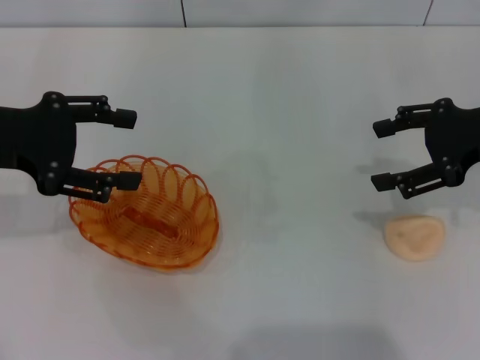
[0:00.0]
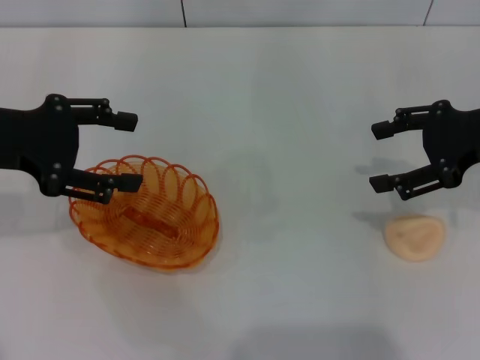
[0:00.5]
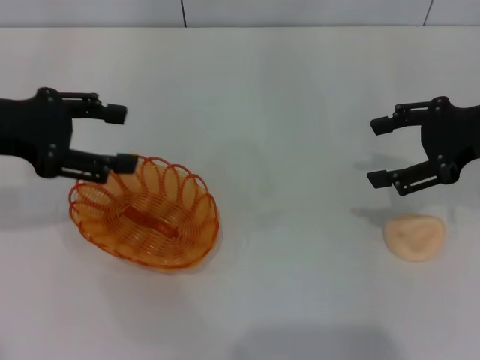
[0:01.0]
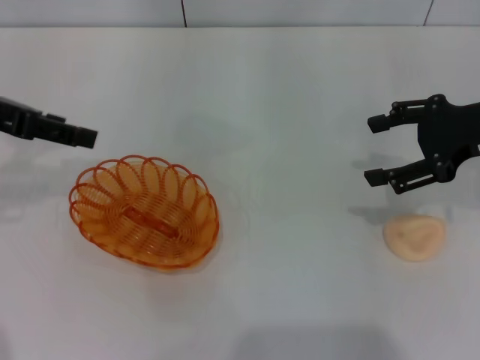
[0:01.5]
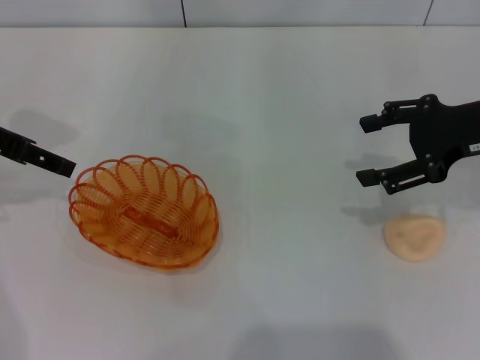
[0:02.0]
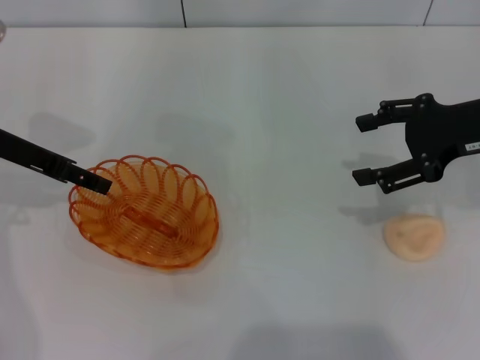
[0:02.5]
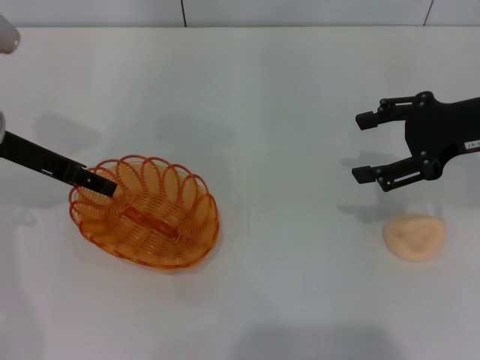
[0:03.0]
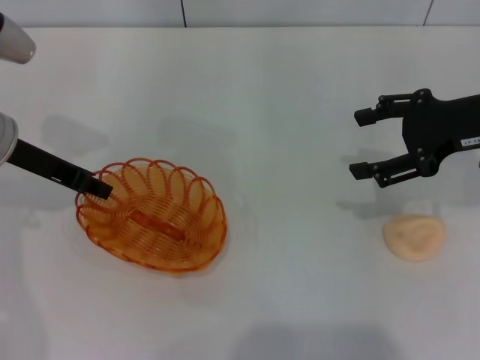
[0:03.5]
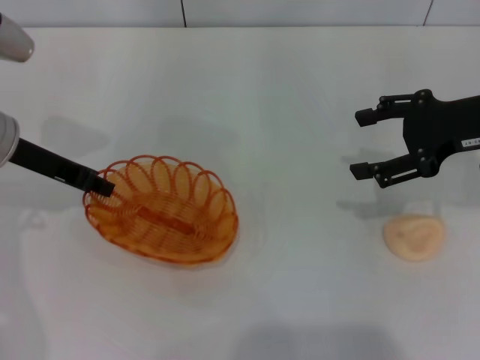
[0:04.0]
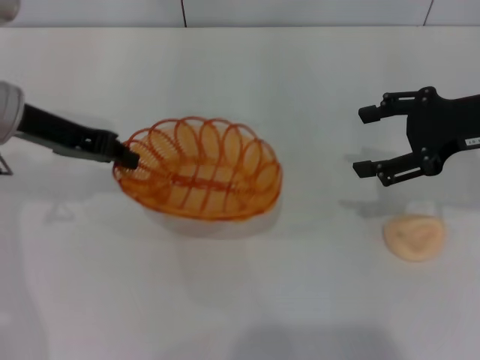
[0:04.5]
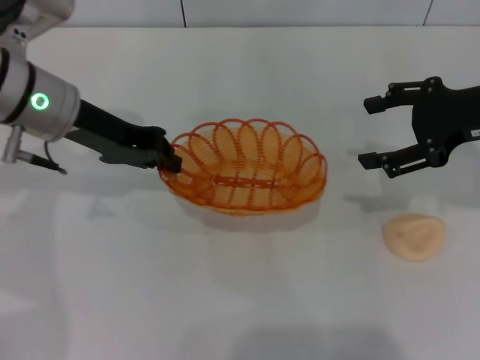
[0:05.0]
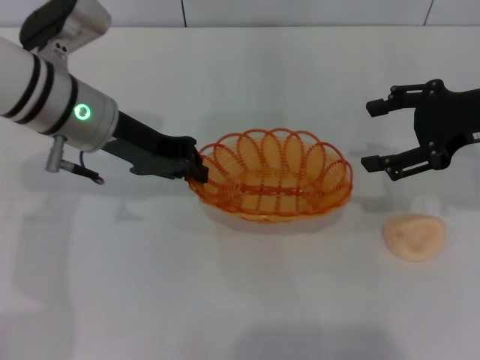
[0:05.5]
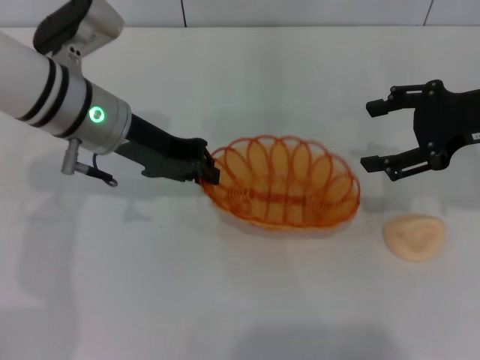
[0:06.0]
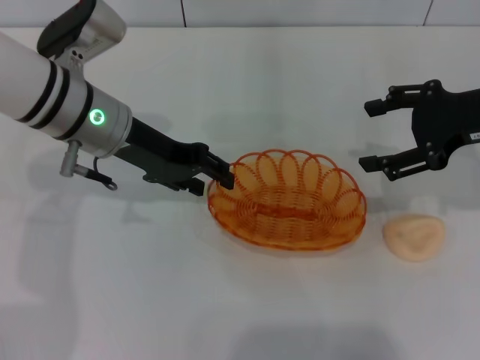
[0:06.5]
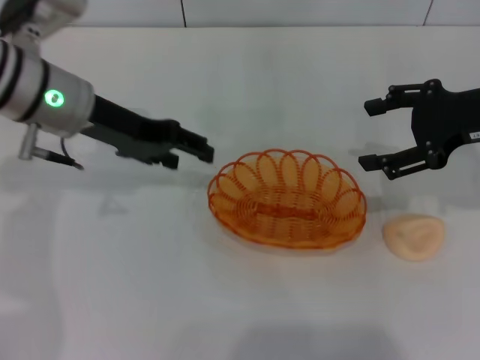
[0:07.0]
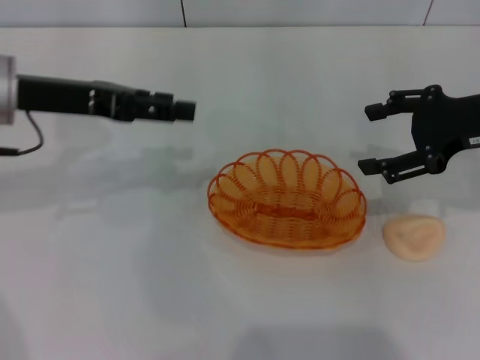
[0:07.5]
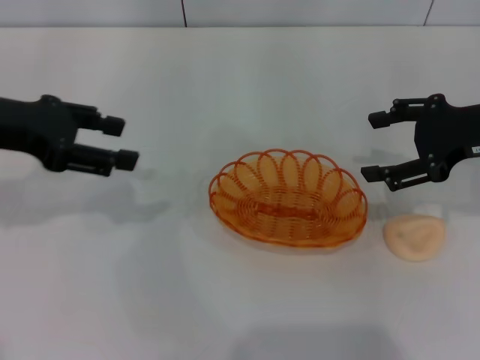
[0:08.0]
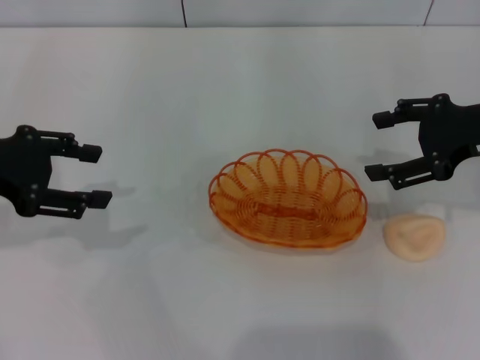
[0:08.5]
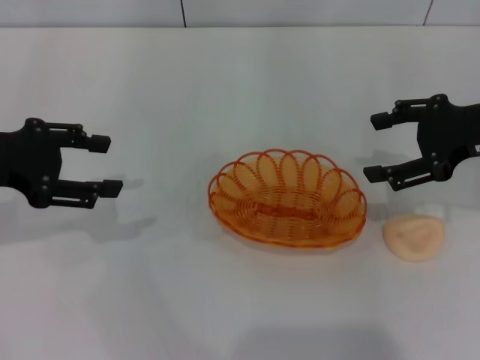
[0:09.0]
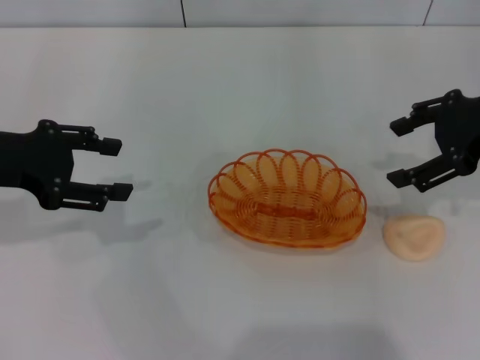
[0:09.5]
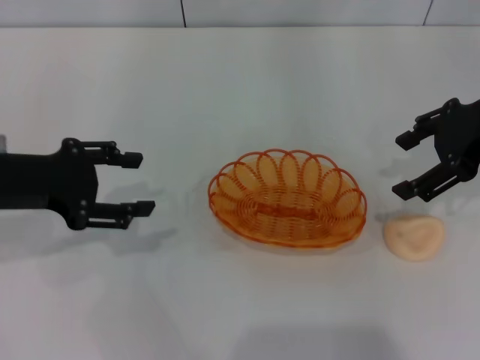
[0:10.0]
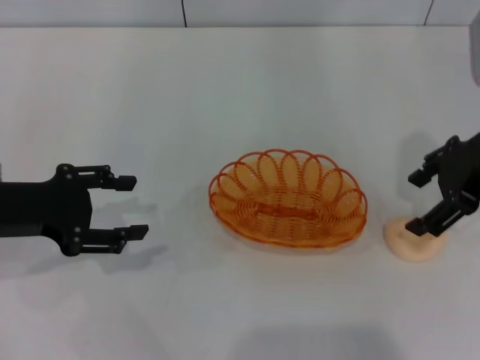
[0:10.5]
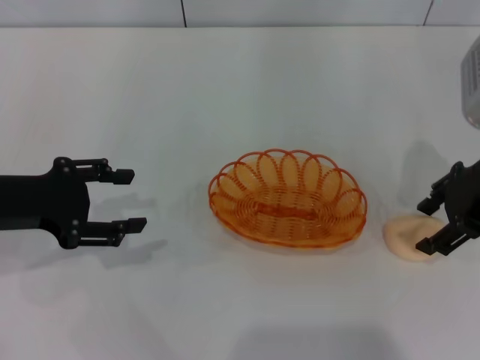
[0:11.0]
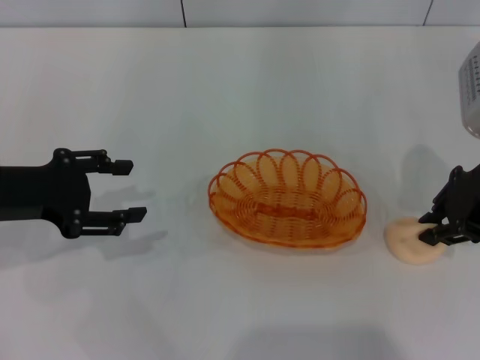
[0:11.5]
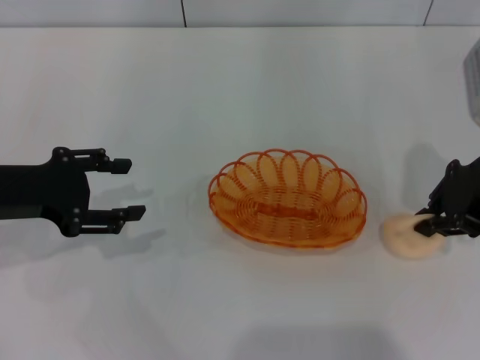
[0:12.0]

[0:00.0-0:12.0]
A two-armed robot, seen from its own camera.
Step, 0:00.0 to 0:04.0: Pick up the basket with the left gripper.
Step, 0:04.5 to 0:06.5: Place the basket in the center of view with the left gripper.
0:02.0 to 0:04.0: The left gripper is displaced downward by about 5 cm, and closes its fingers.
0:04.0 to 0:06.0: The left gripper is displaced to the right by some 10 cm.
0:06.0 to 0:08.0: The left gripper heads to the left and upward, covering roughly 15 cm, and opens its fingers.
0:08.0 to 0:10.0: The left gripper moves downward, some 5 cm, while the right gripper shifts by about 5 cm.
0:10.0 to 0:12.0: The right gripper closes up.

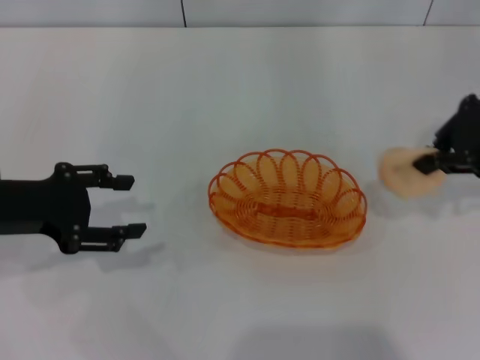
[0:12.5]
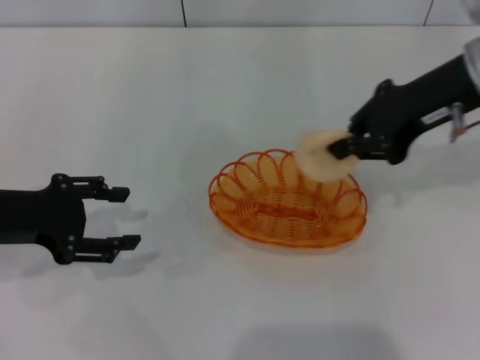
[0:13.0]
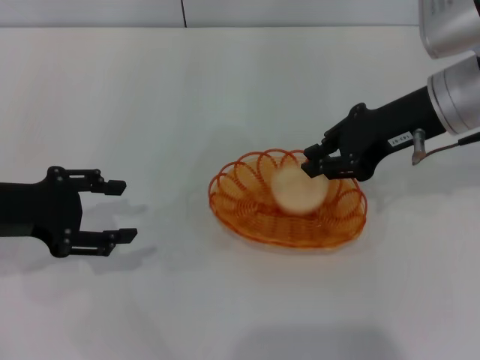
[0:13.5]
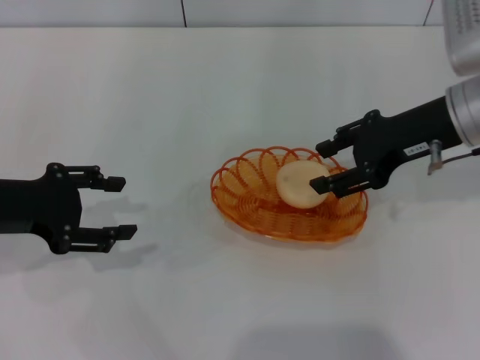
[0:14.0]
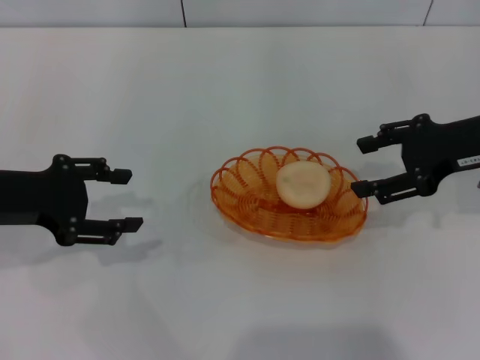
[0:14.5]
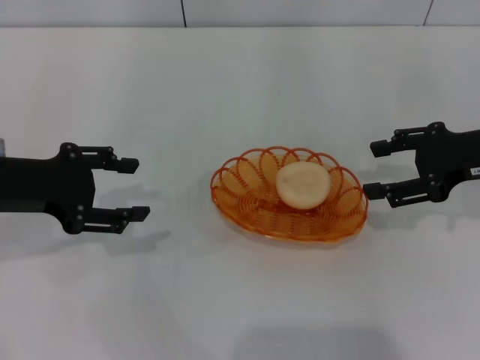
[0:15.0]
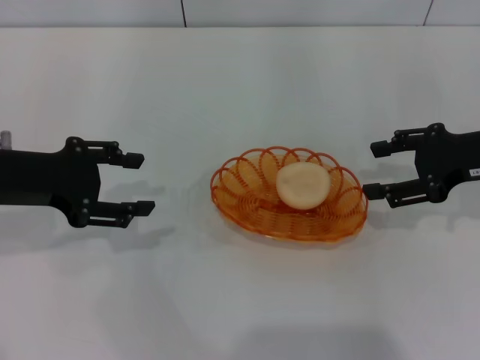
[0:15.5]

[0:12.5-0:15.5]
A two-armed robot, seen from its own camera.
Step, 0:12.5 to 0:14.0: Place the egg yolk pastry into the basket with the right gripper.
0:12.5 to 0:14.0: The right gripper is displaced downward and to the left by some 10 cm, and opens up.
0:14.0 to 0:15.5: The right gripper shifts approximately 10 cm to the right.

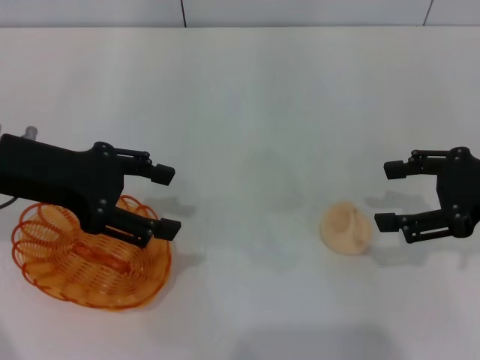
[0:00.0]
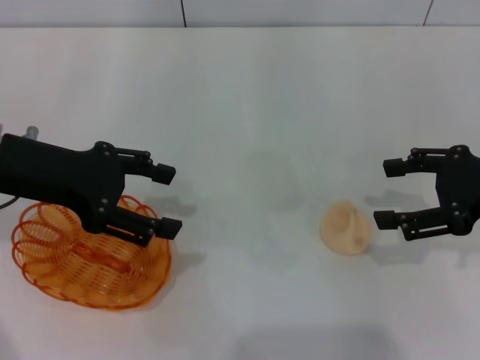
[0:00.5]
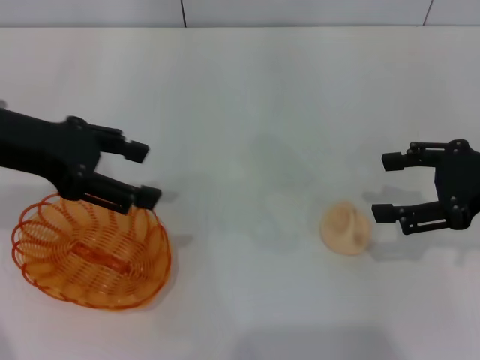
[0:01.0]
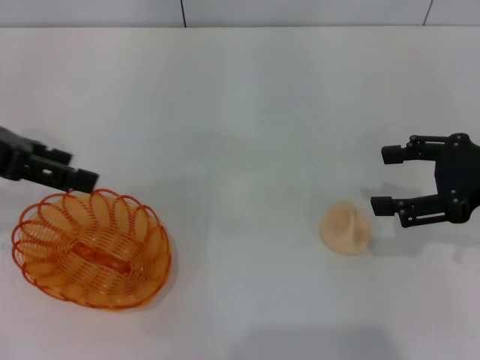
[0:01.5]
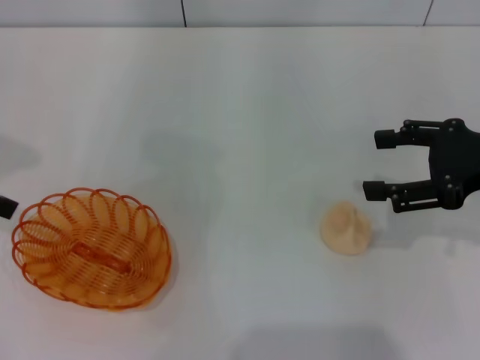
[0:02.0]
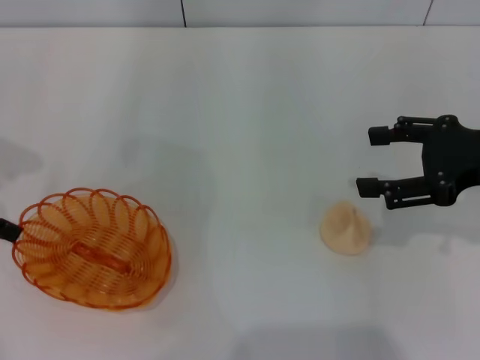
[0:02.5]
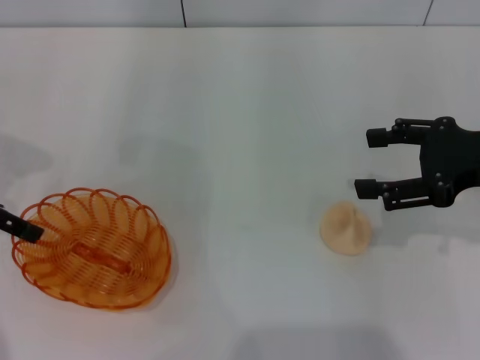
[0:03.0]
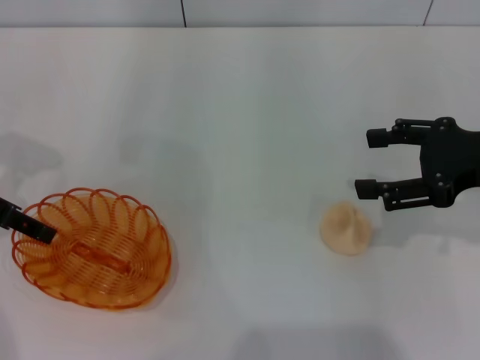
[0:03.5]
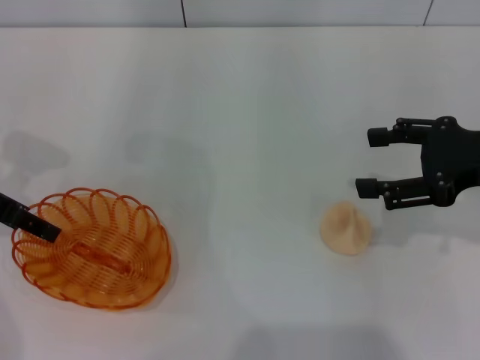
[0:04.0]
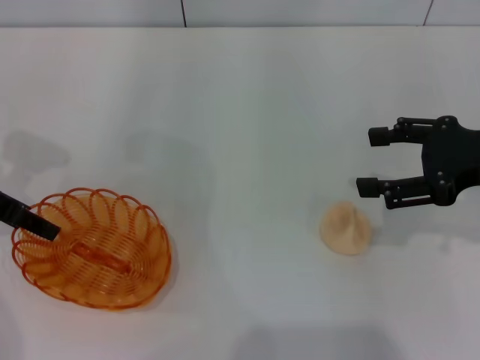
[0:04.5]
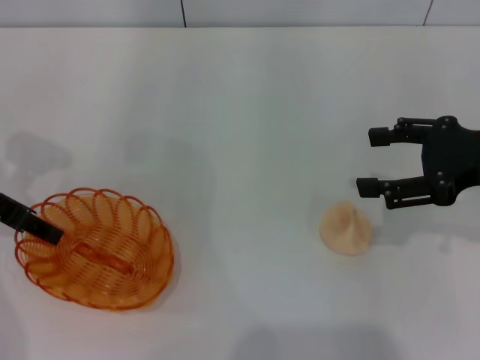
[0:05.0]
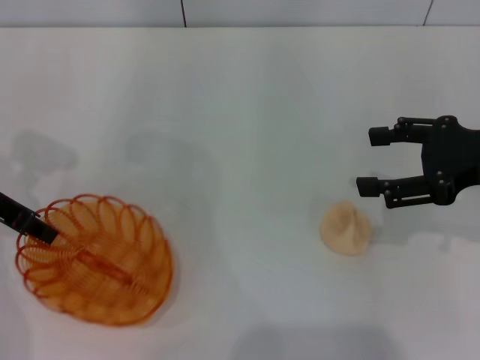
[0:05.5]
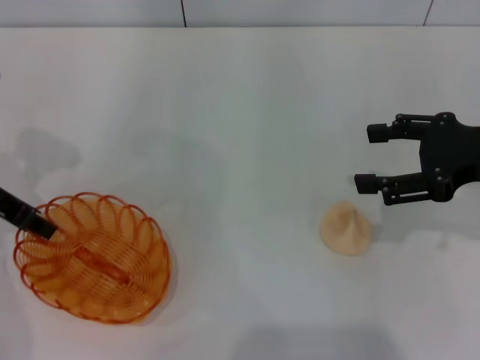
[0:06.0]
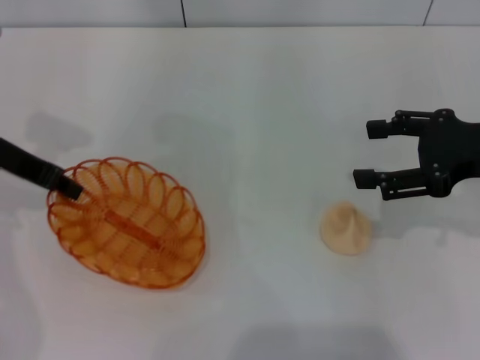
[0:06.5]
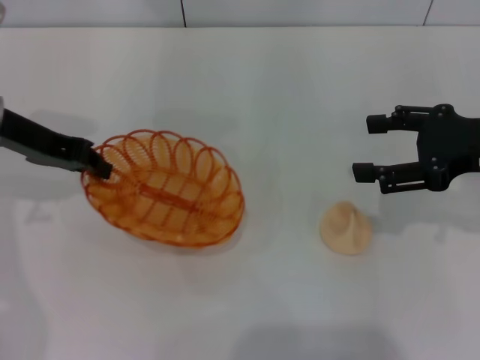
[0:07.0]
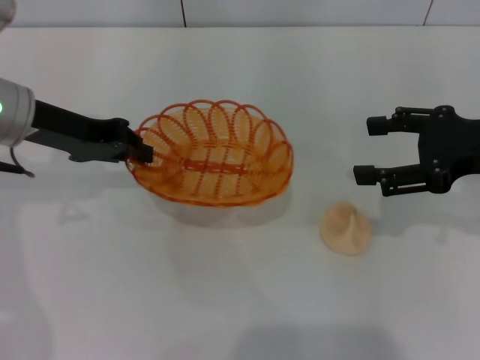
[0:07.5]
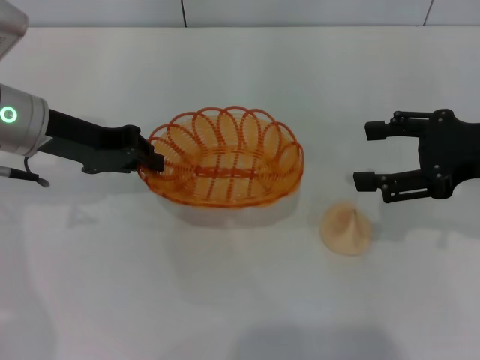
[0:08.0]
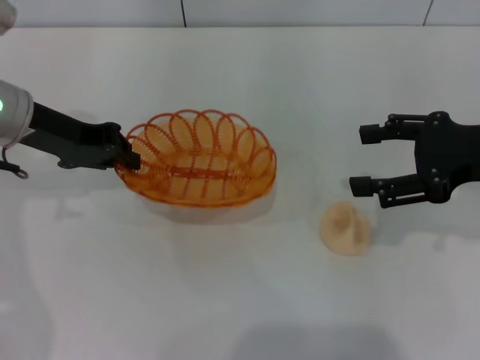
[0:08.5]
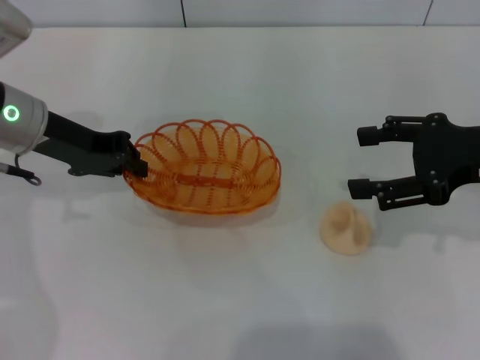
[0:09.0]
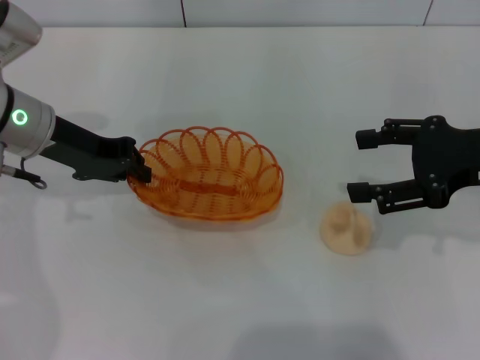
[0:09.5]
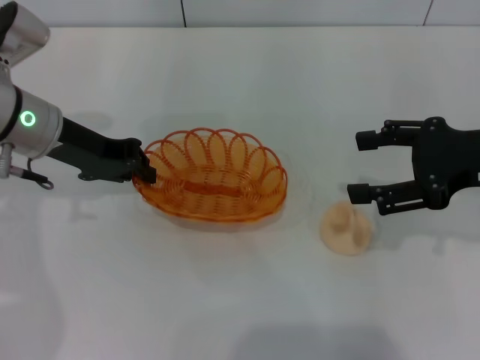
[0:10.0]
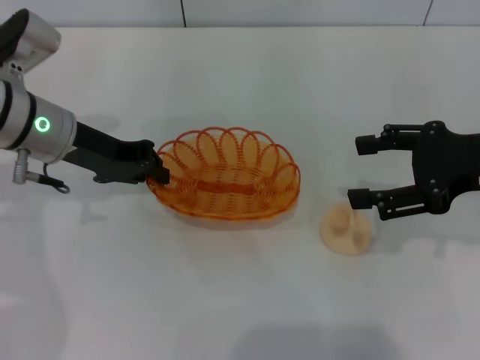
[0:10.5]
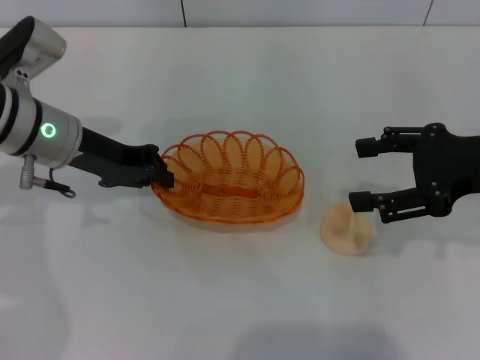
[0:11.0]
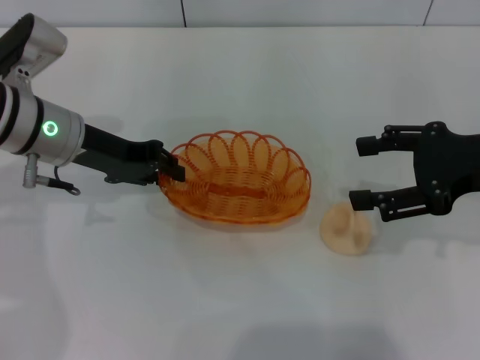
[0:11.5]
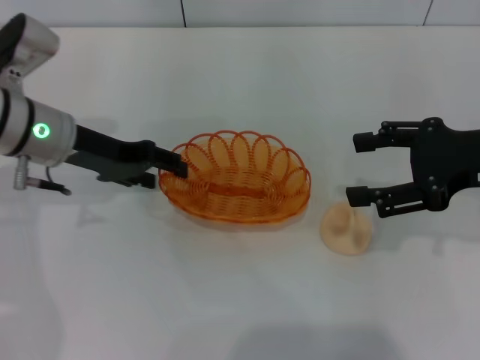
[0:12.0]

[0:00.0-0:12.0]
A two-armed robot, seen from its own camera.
Step, 0:00.0 to 0:06.0: Pick up the basket with the left gripper.
0:00.0 to 0:02.0: The left gripper shifts some 10 cm to the left and upward.
0:02.0 to 0:04.0: The left gripper moves downward, about 5 cm, and closes up.
0:04.0 to 0:06.0: The left gripper closes its fingers.
0:06.0 to 0:08.0: The left gripper heads to the right, covering roughly 5 cm.
0:08.0 to 0:10.0: There are only small adjustments of the grippers.
0:10.0 to 0:12.0: The left gripper opens.
